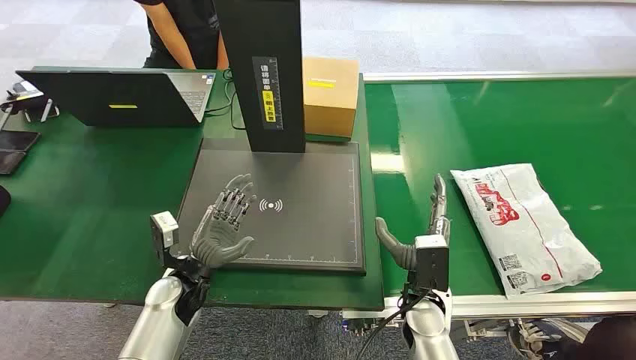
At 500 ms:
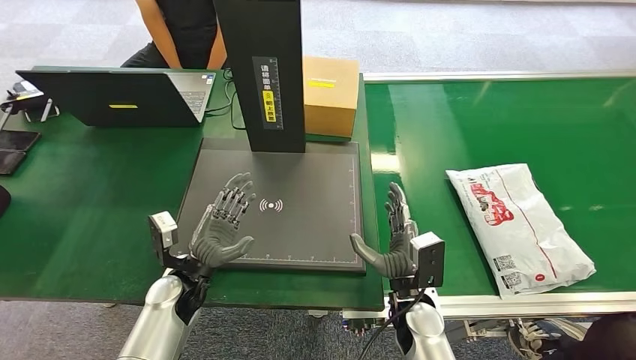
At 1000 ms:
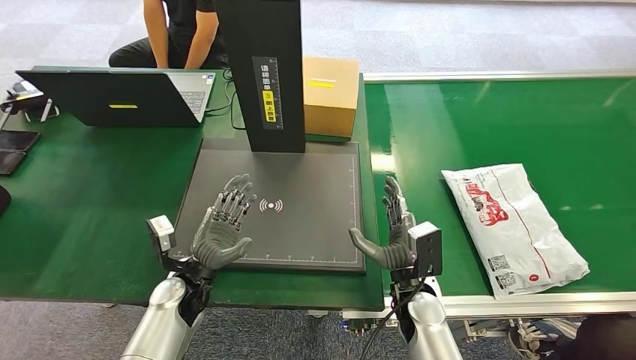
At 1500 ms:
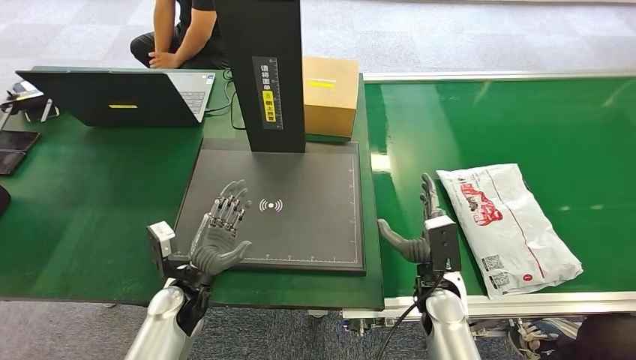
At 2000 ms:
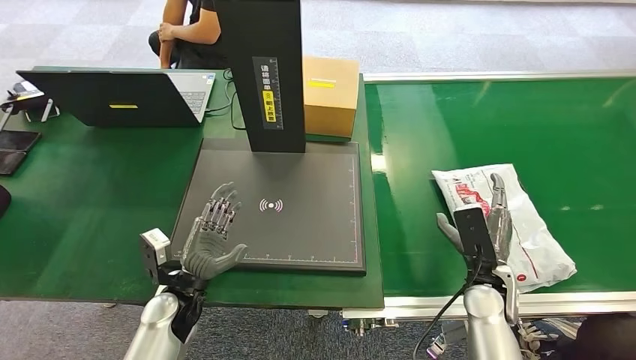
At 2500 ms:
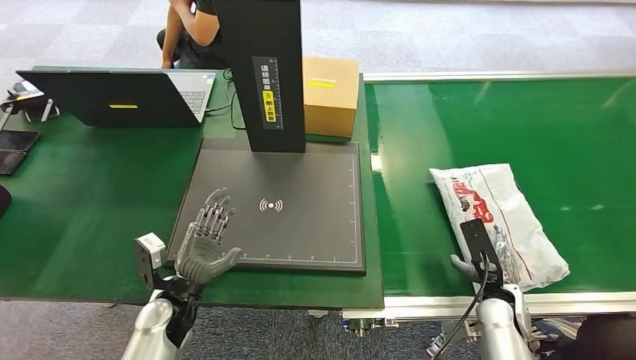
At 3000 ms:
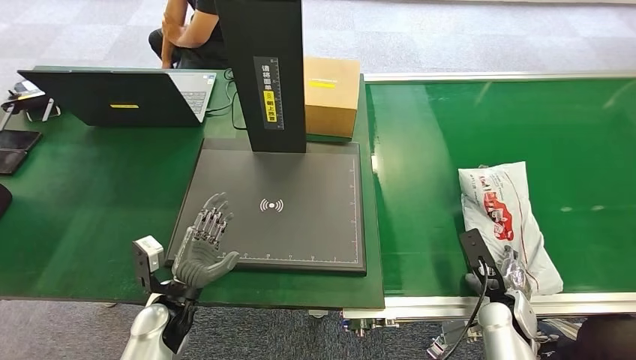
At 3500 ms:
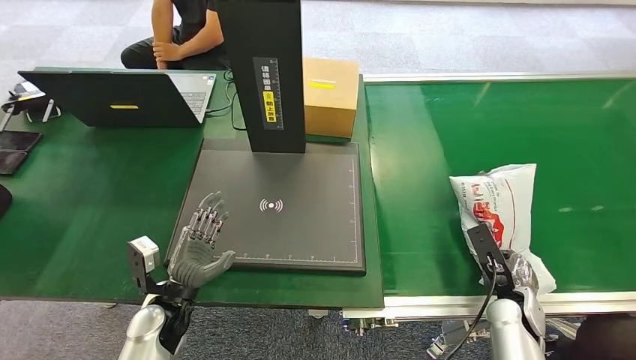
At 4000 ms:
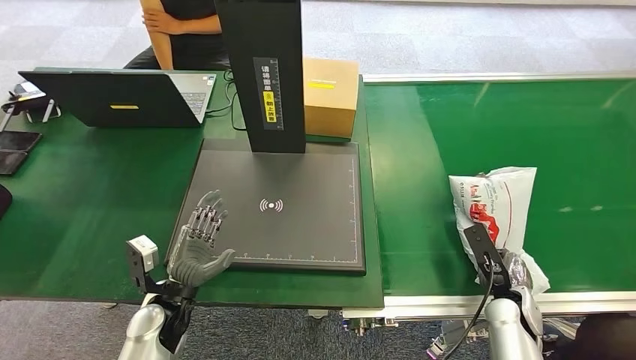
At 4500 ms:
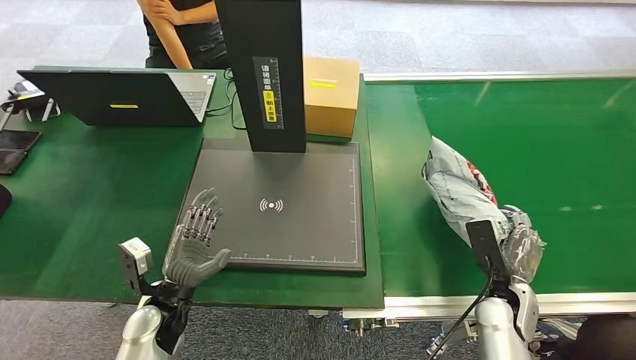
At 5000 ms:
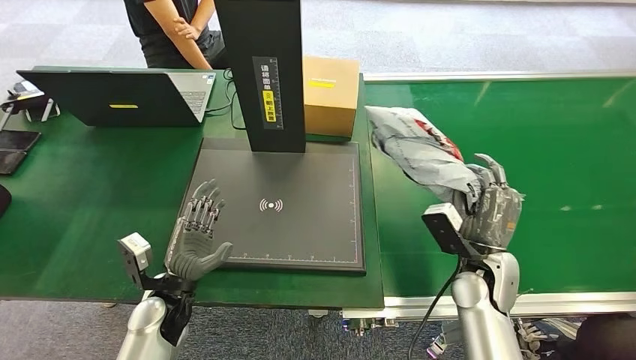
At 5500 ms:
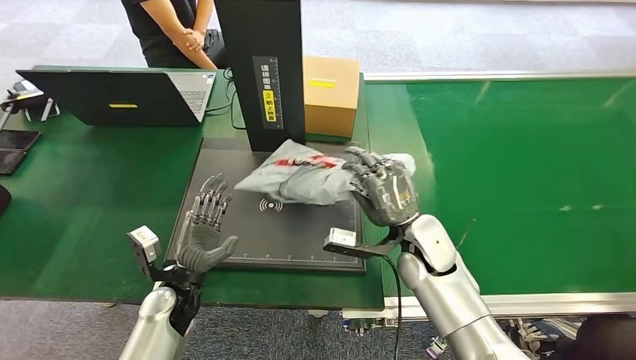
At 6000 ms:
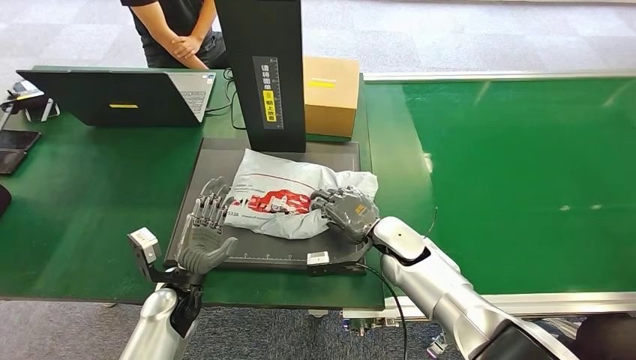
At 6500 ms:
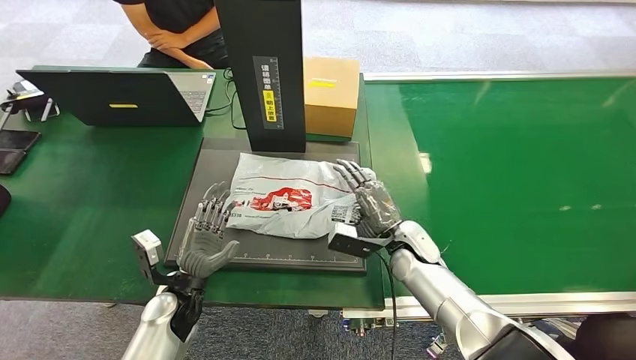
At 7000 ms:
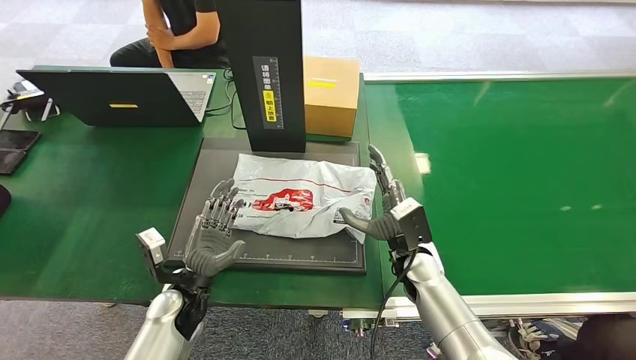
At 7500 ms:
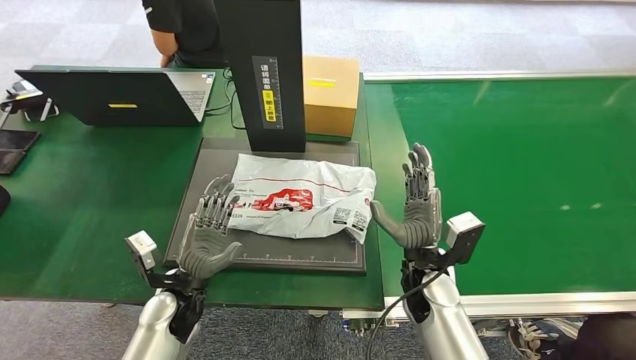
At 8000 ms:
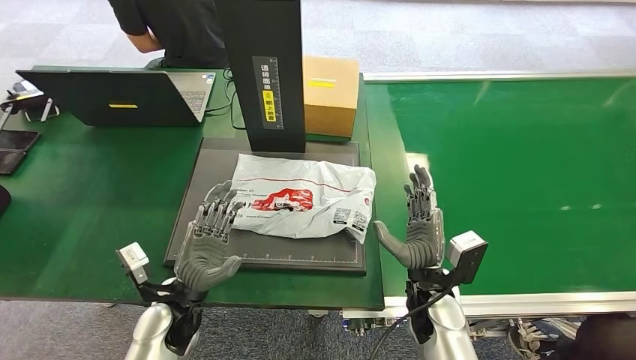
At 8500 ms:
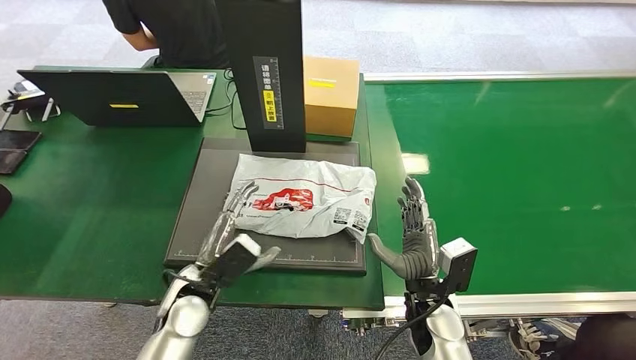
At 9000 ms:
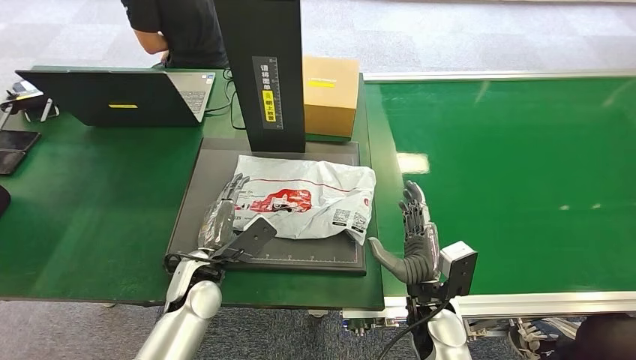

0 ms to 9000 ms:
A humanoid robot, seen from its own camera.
Step, 0 ms to 4500 ms: Pick up the package from the conveyor belt.
Step, 5000 ms to 8500 ms: Place the package onto the inbound machine.
7000 ms to 9000 ms: The right hand travels backward by some 10 cm. Meanwhile the left hand moves approximately 5 cm.

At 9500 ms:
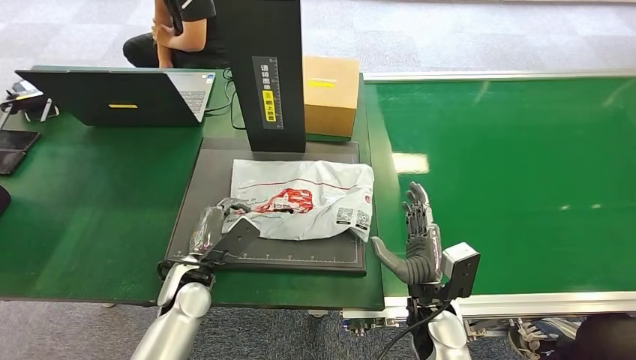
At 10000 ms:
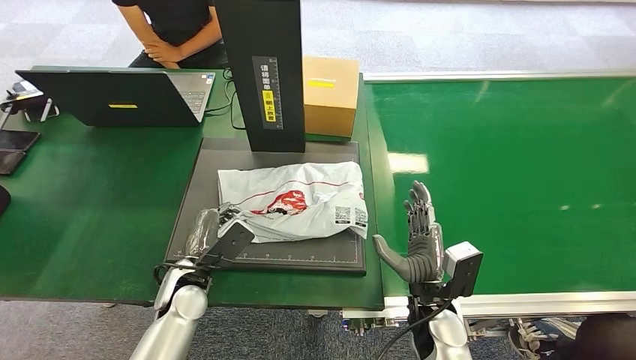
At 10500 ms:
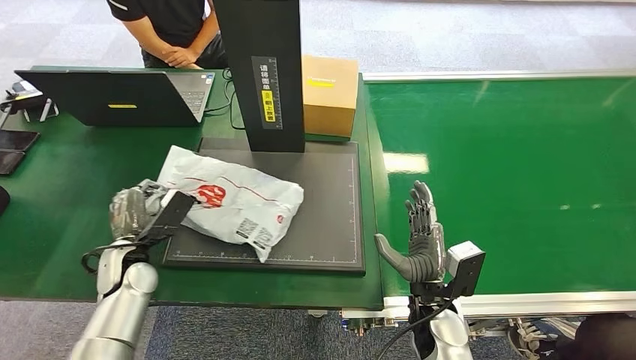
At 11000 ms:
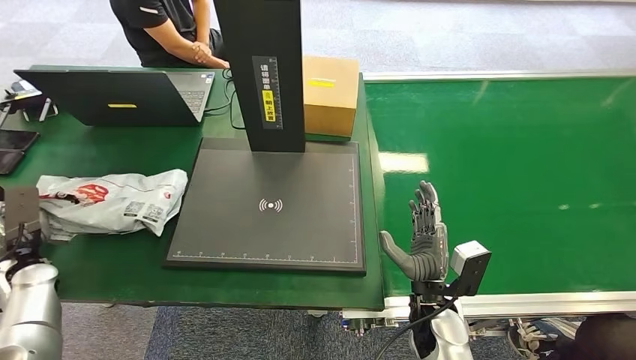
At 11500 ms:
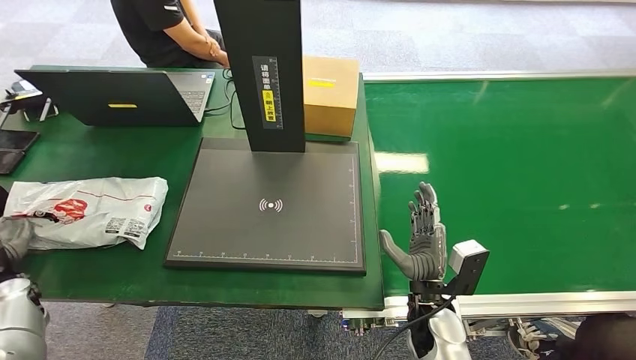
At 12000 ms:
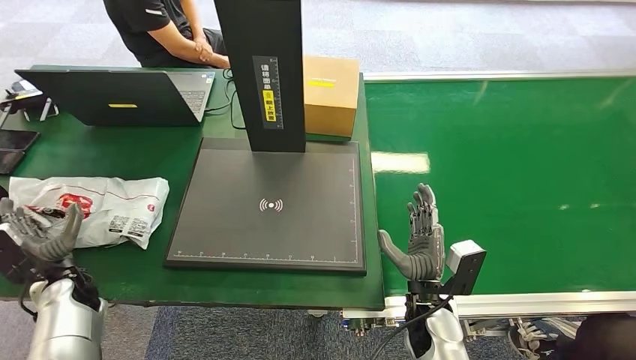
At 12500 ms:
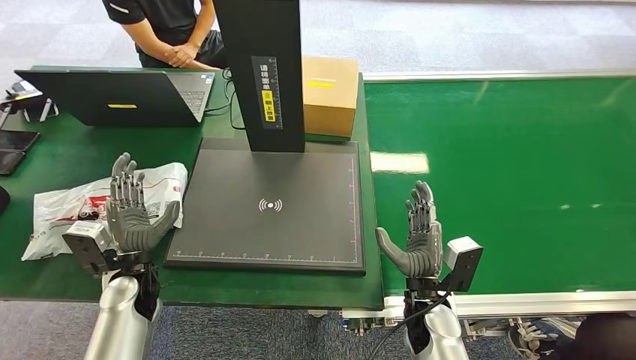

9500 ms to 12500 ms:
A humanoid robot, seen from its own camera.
Step, 10500 ms to 12500 ms: Place the package into the parcel locker.
11000 ms to 12500 ms: The left hand heads to the right, covering about 20 cm.
